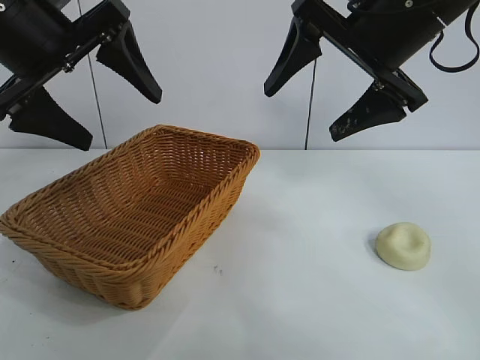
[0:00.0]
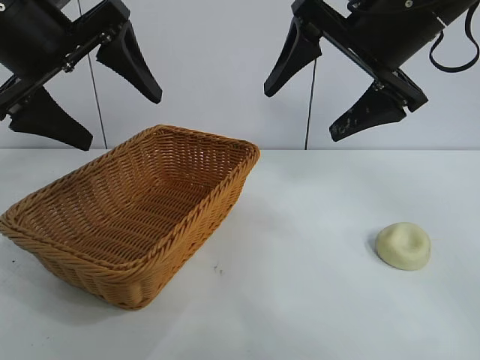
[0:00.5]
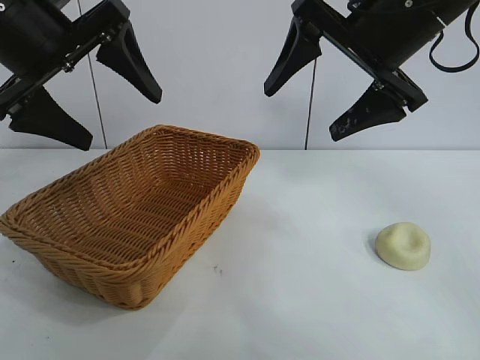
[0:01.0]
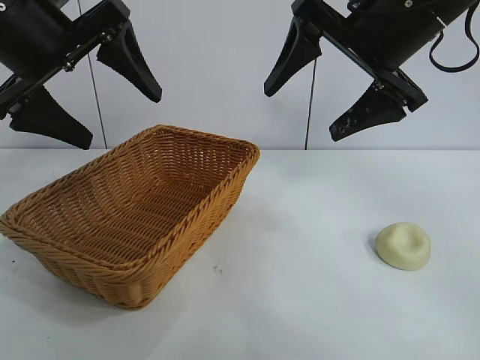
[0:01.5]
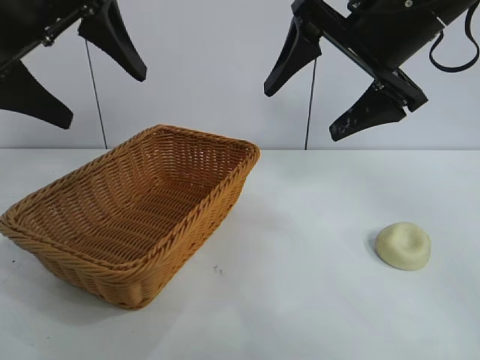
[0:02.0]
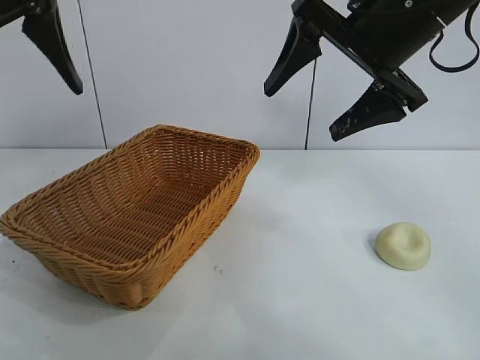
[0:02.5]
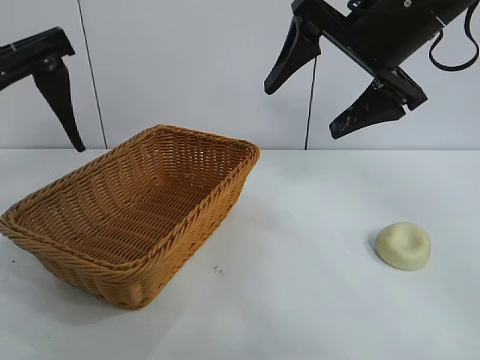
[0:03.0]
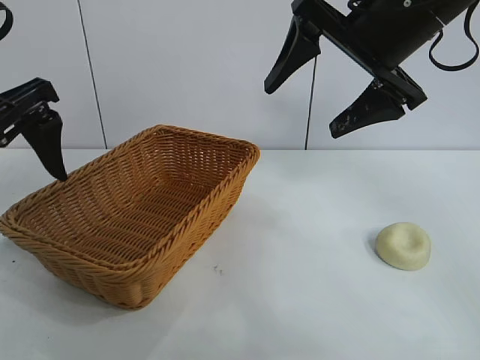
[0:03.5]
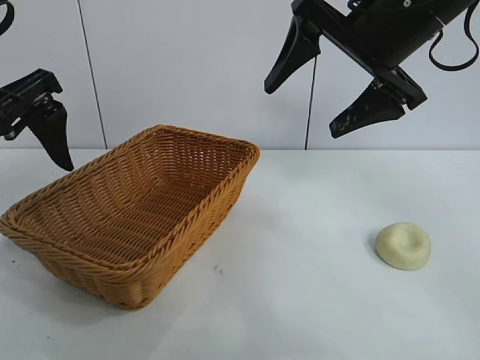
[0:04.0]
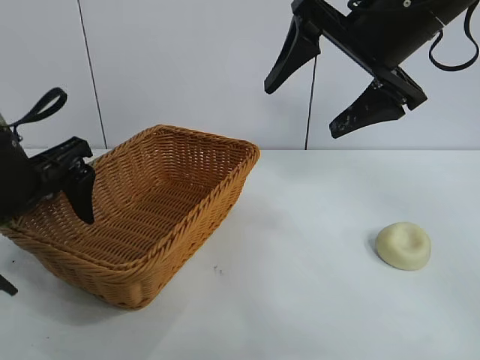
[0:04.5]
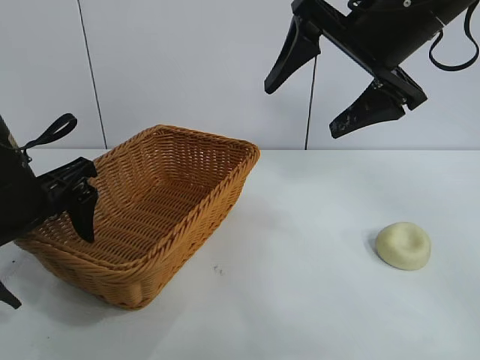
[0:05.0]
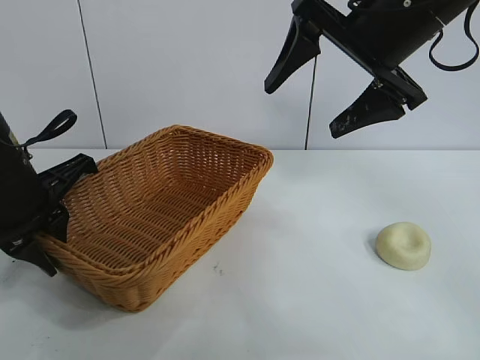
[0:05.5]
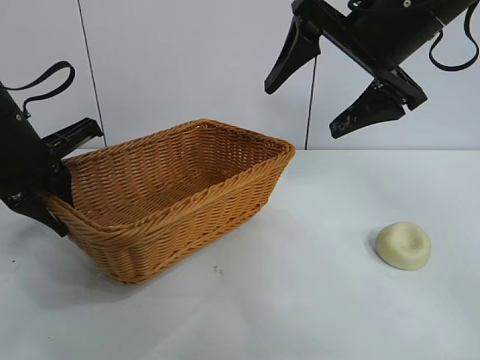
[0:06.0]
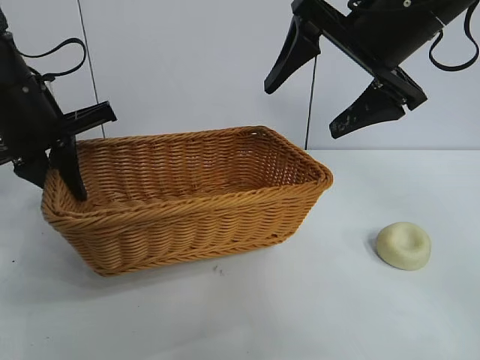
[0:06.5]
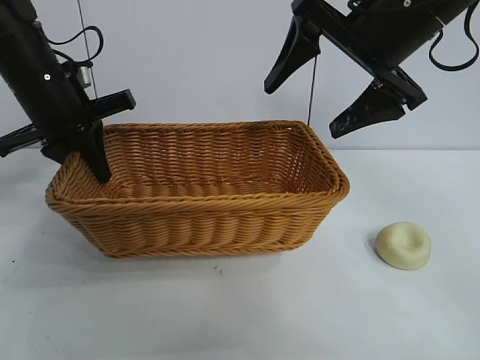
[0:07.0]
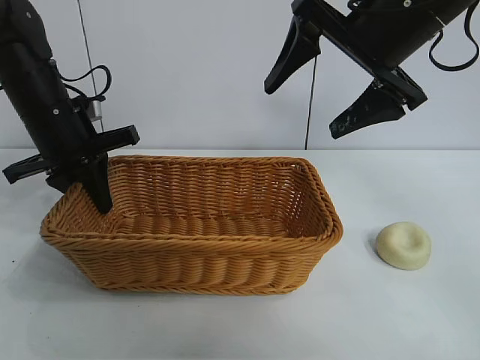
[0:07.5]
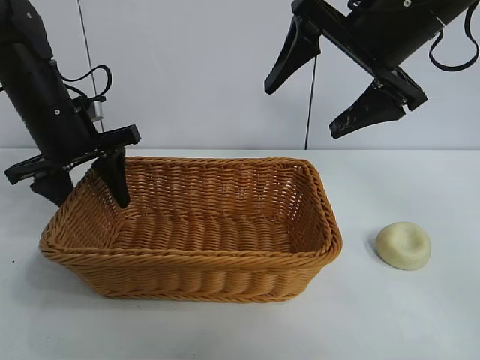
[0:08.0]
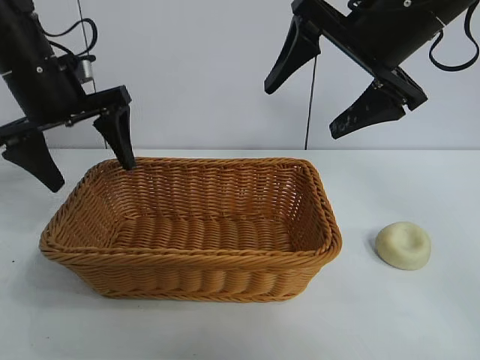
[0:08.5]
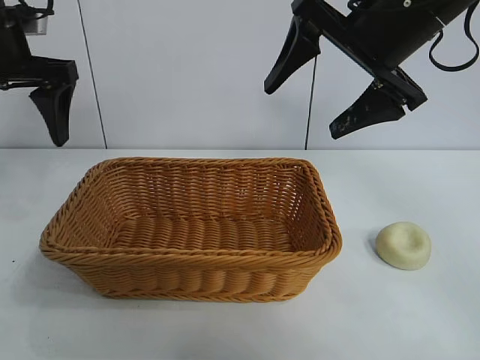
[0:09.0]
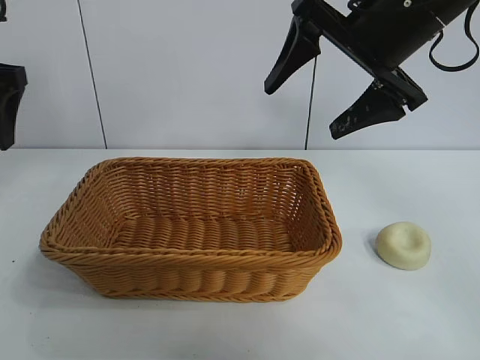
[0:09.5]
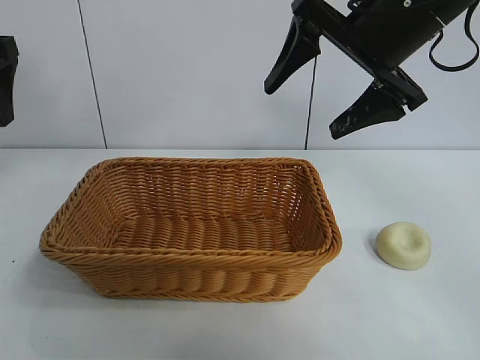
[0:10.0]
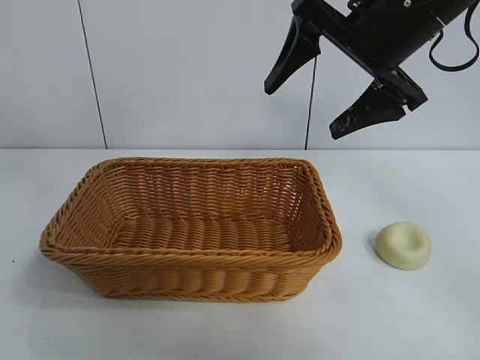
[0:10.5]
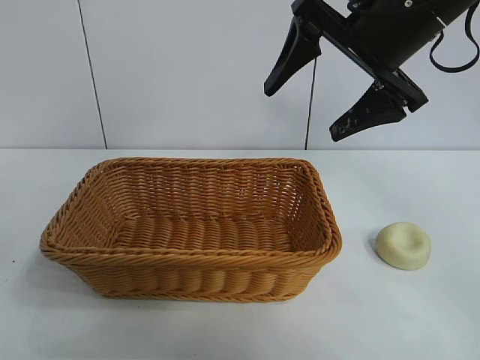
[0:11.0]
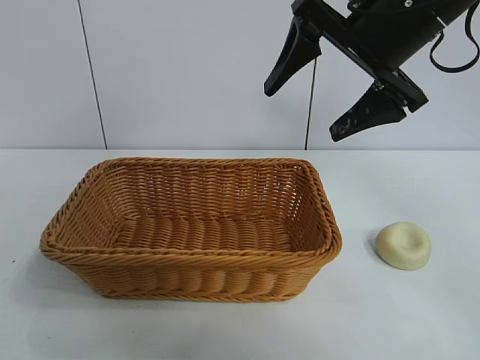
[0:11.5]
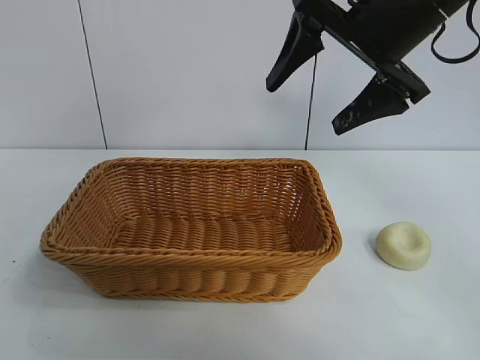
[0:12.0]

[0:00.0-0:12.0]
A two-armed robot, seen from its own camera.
Task of the whole recording: pick up the egg yolk pastry and put it into the basket.
Step, 0:01.5 to 0:05.0: Grasp the basket with left gripper.
Step, 0:06.0 to 0:08.0: Place the basket in the center of view with left gripper.

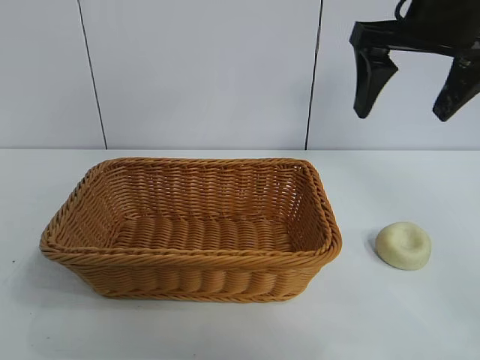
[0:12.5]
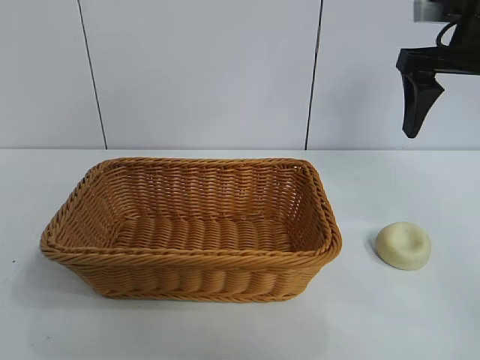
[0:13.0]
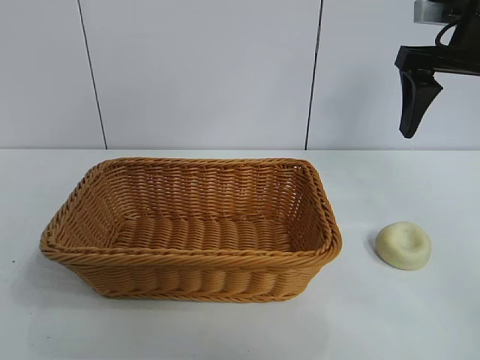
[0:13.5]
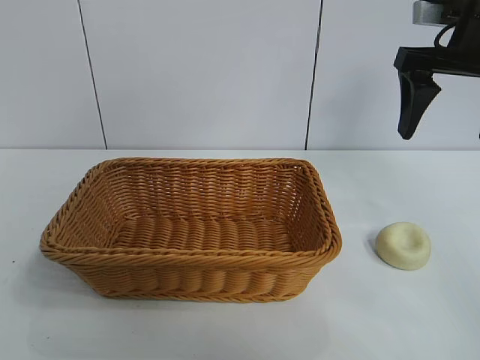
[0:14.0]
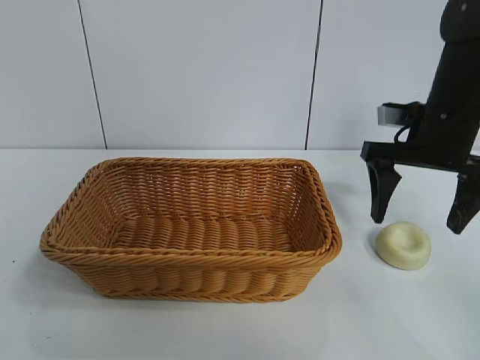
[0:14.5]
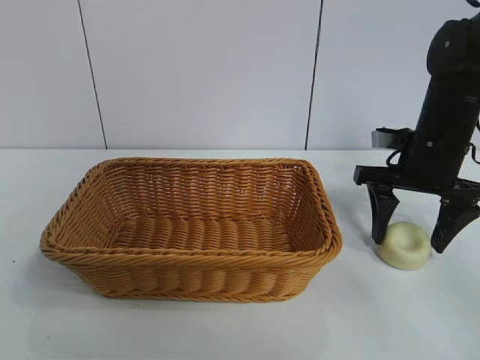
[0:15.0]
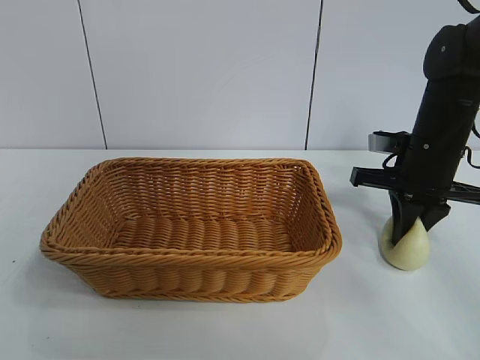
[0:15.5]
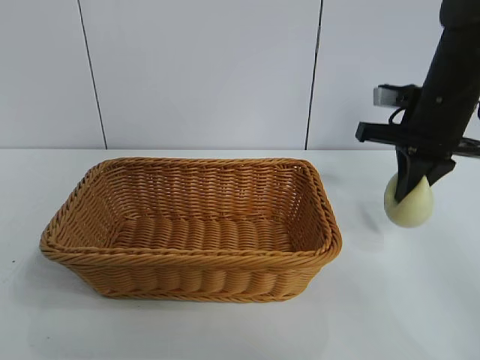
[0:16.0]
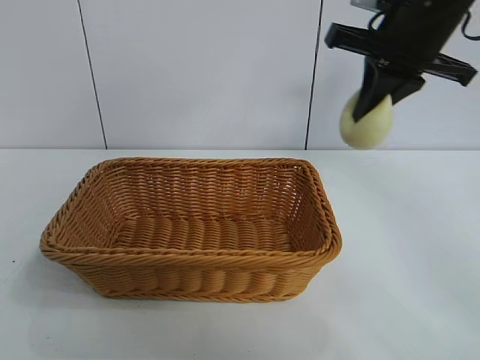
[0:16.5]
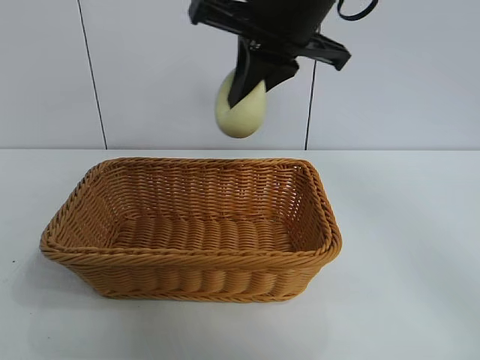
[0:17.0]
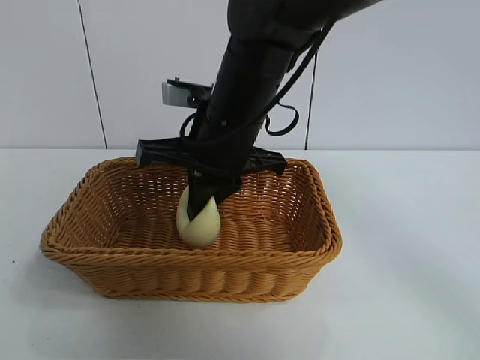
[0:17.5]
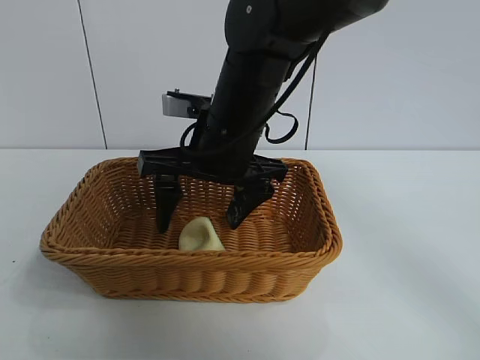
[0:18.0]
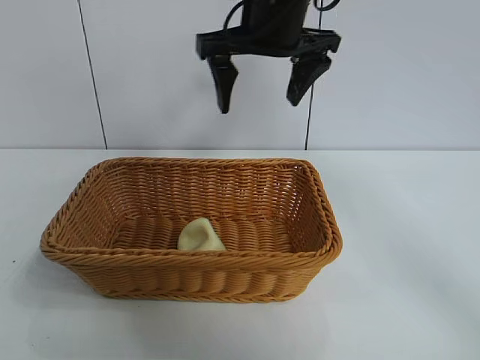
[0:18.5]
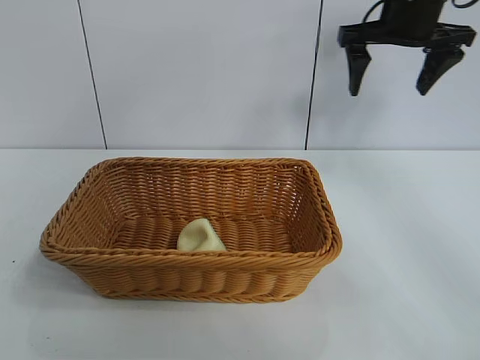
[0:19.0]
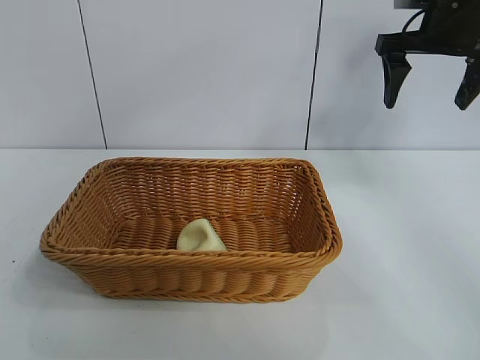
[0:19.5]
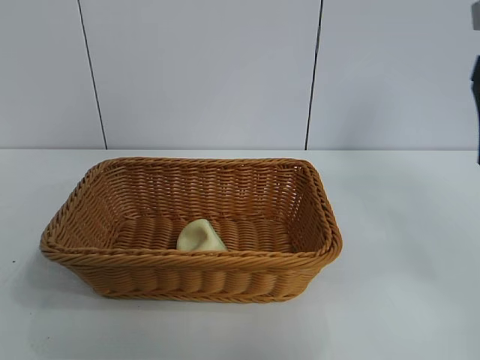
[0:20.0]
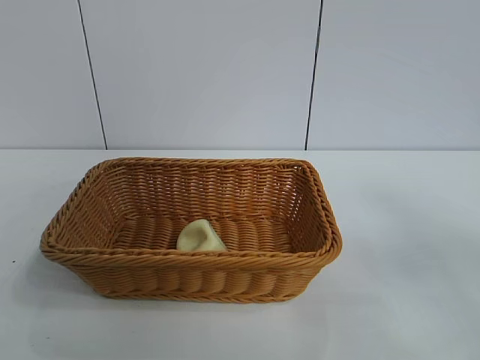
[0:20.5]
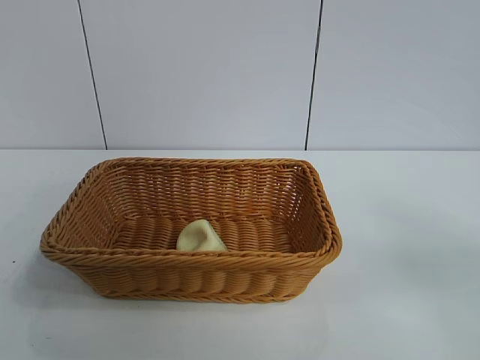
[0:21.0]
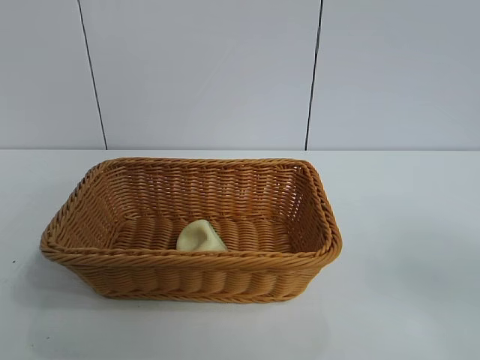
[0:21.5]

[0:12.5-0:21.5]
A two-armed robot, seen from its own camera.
Task of the whole recording: pick up the egg yolk pastry and put it into the basket.
Step, 0:12.5 to 0:15.0: Grasp egg yolk pastry with right gripper.
Step, 0:16.0 to 0:17.5: Place the egg yolk pastry in the basket with right gripper.
